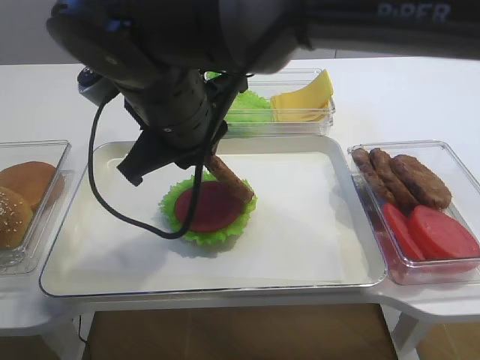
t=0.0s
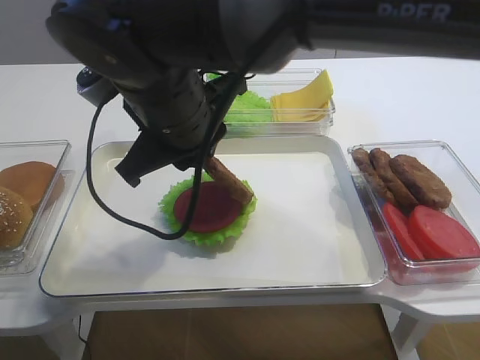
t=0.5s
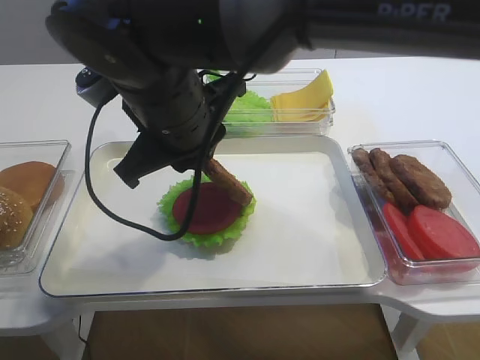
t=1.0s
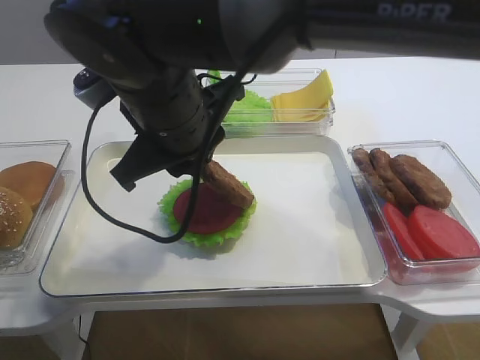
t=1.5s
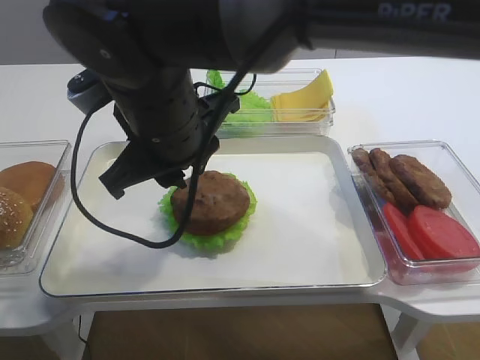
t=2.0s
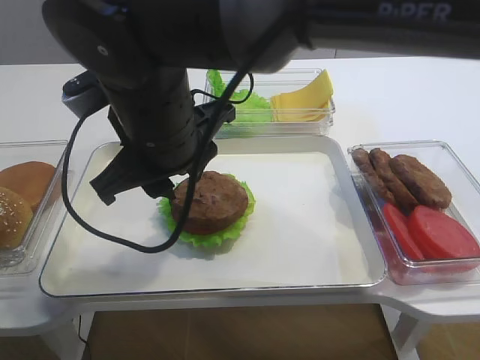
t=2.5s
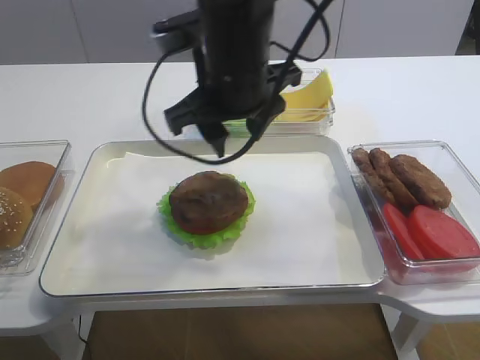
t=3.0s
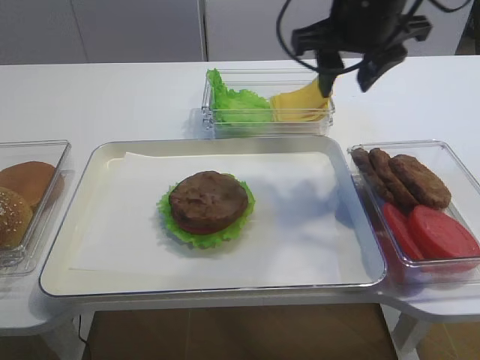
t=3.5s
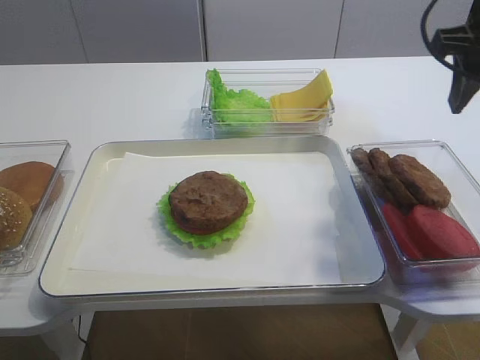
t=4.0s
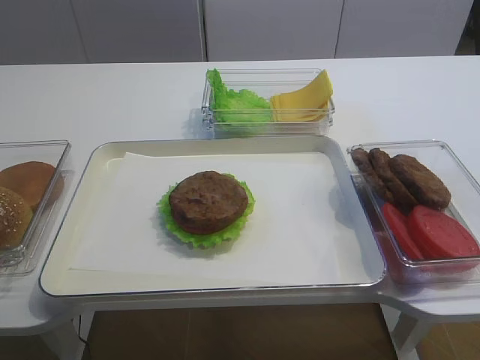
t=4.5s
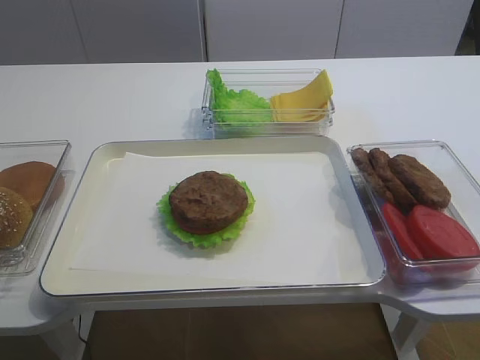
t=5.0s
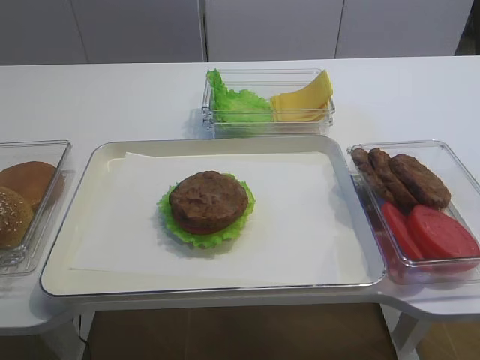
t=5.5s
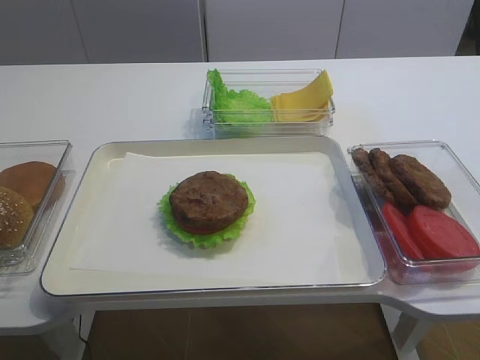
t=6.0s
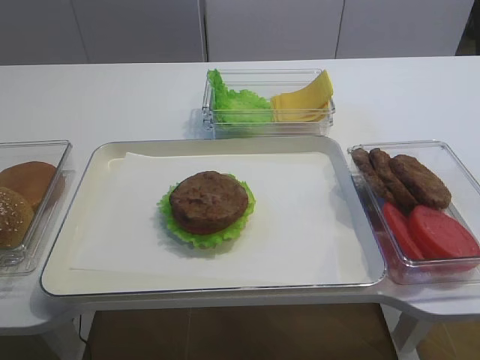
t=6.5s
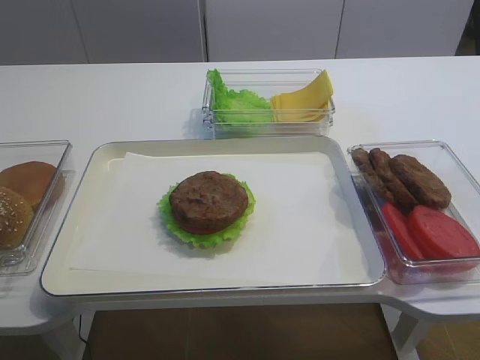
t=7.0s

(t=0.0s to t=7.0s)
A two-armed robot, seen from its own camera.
Step, t=0.0s - t=2.0s: Place the cutlet on the tomato slice with the right gripper.
t=0.0s - t=2.0s: The grippers stay close to where they were, moving slightly.
t=2.0s - t=3.5s: The right gripper heads to the right and forward, covering about 20 cm, and opens.
t=3.5s - t=5.0s: The right gripper travels backward and to the right by about 35 cm.
t=5.0s - t=7.0s: The right gripper goes approximately 5 cm downward.

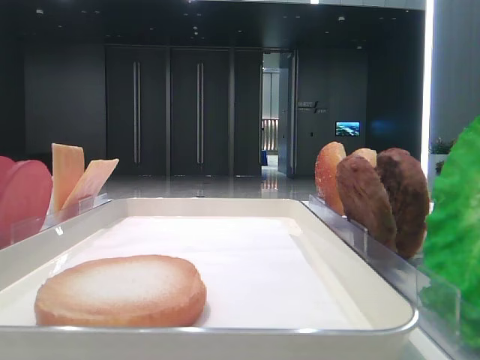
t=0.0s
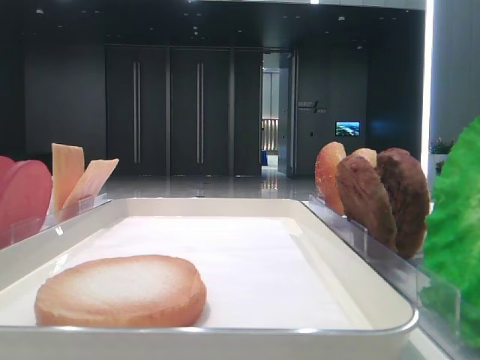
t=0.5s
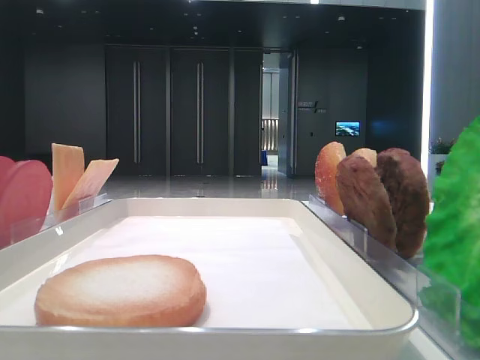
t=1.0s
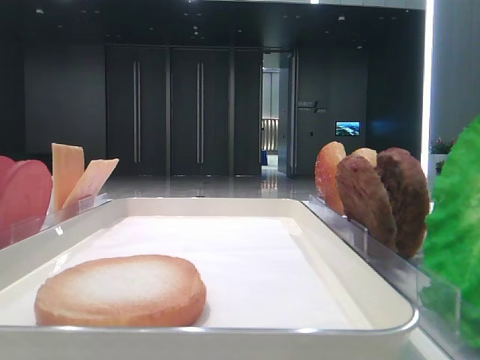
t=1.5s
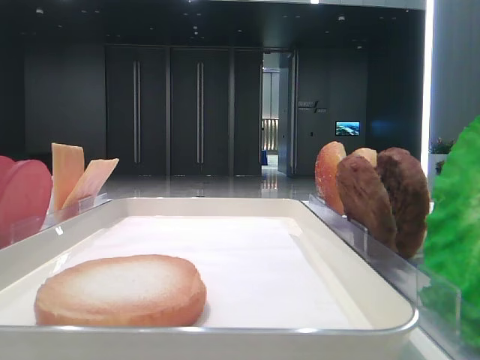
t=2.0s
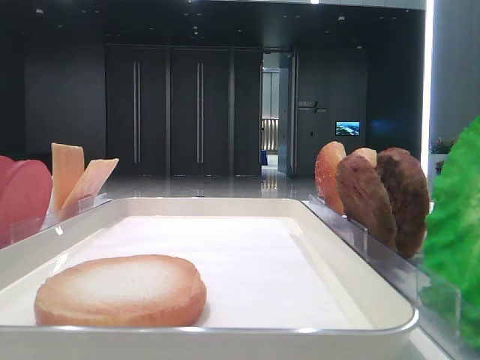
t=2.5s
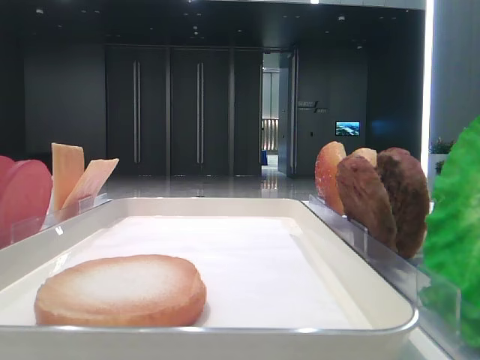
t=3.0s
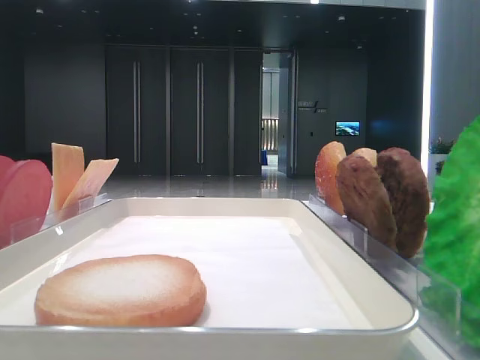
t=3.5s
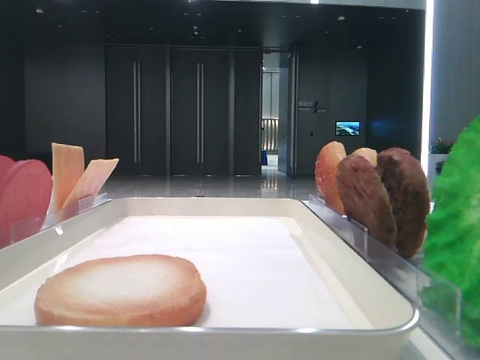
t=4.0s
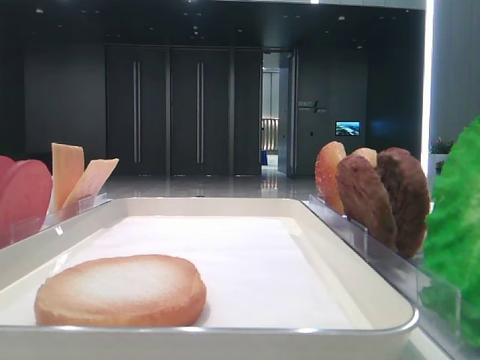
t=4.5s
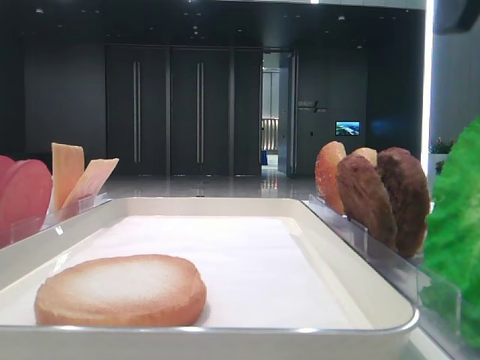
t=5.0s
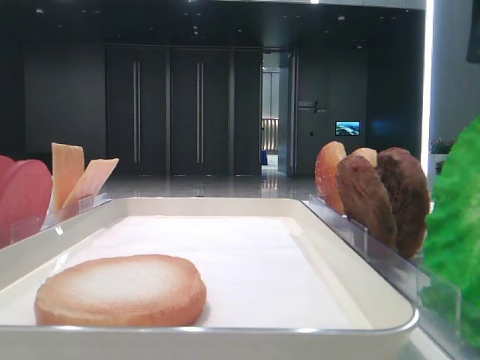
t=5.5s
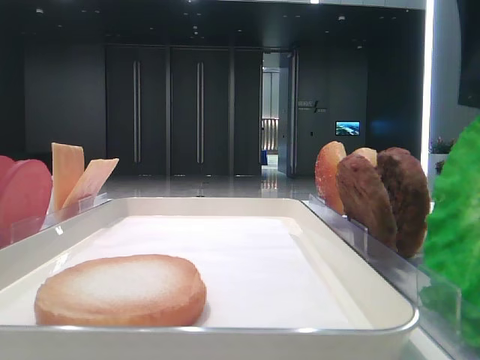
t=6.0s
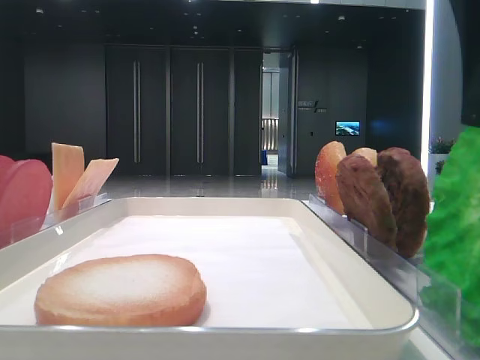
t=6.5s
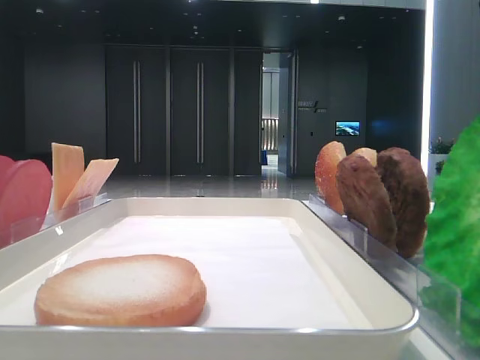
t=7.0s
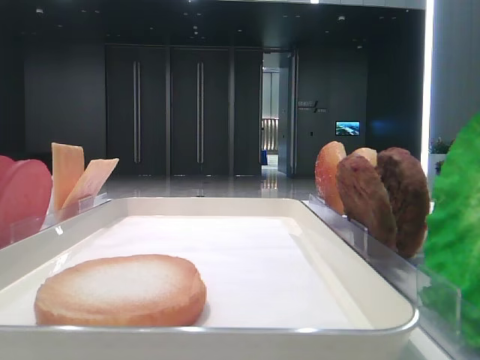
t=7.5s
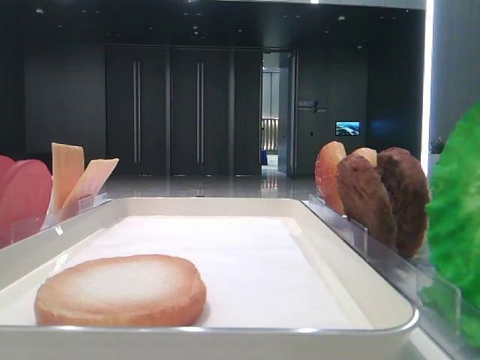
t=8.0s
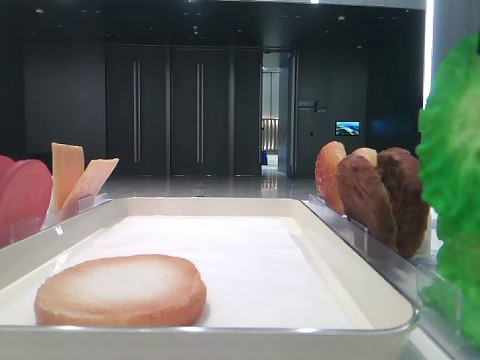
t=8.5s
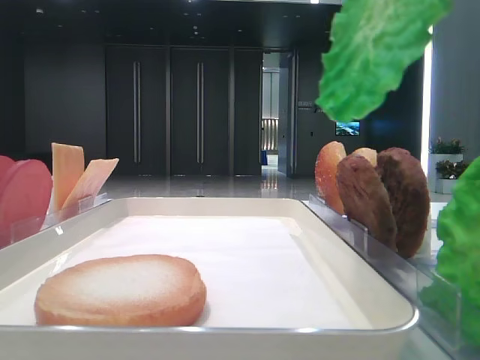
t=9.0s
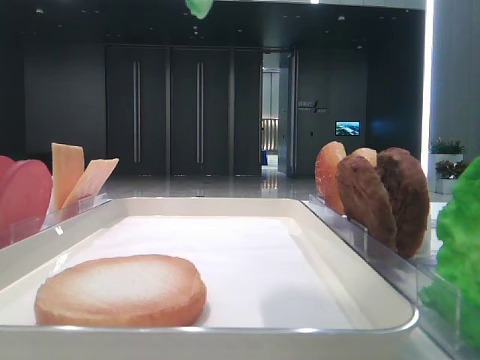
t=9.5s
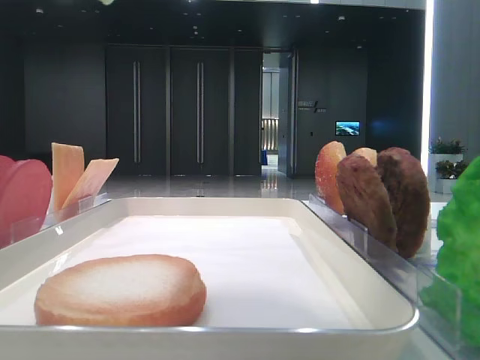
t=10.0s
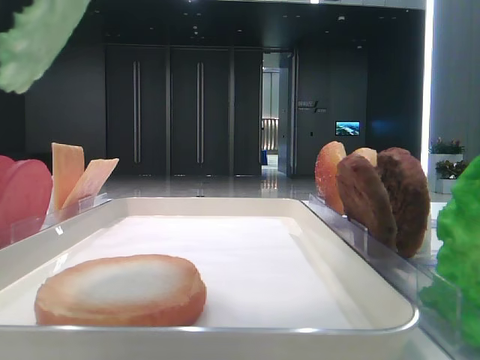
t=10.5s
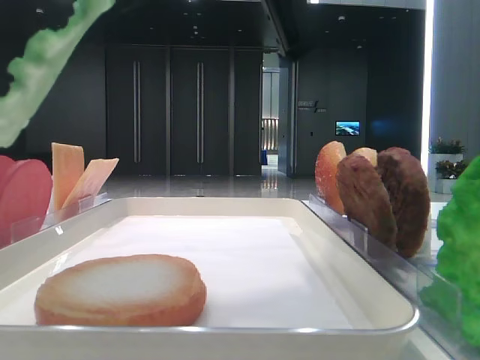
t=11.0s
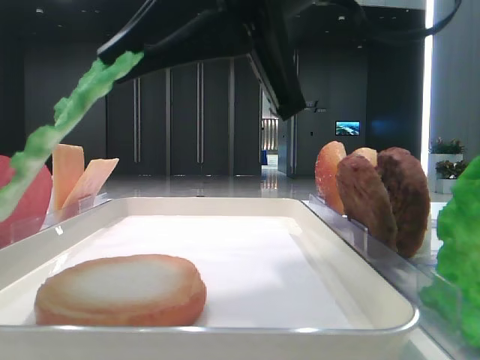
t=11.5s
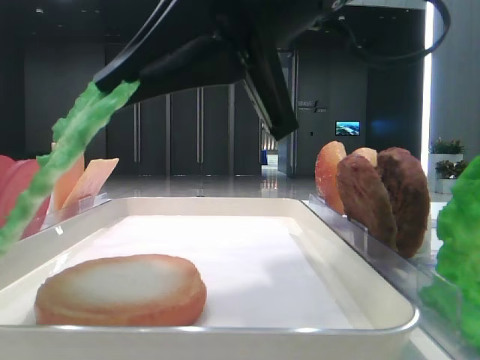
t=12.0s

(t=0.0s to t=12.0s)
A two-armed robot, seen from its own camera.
Step, t=0.0s - t=7.5s: Grab the lettuce leaf with the right hand.
t=4.0s - t=6.0s: The right gripper goes some 5 cm forward and to the left.
t=6.0s - t=8.0s: The right gripper closes.
t=8.0s - t=10.0s: The right gripper travels upward and to the left by roughly 10 cm.
t=10.0s - t=12.0s: The right gripper heads downward, to the left and forward, covering roughly 15 cm.

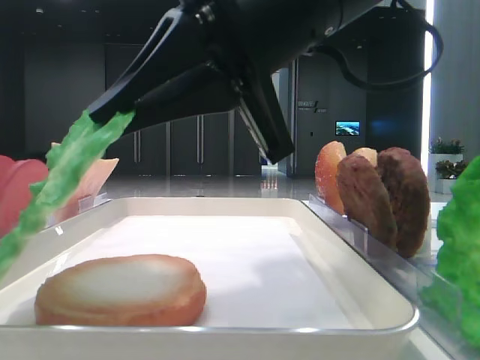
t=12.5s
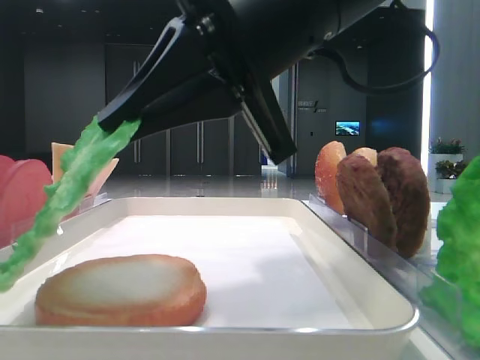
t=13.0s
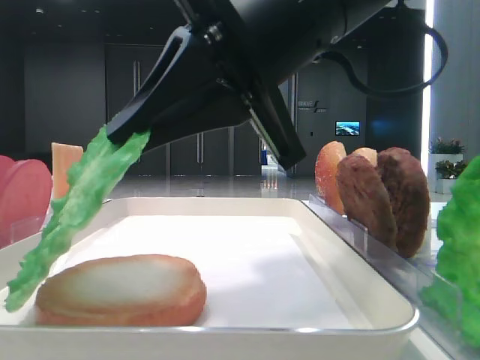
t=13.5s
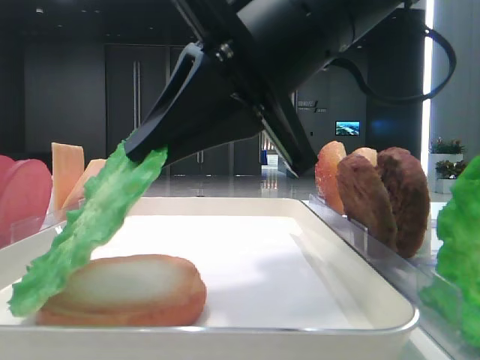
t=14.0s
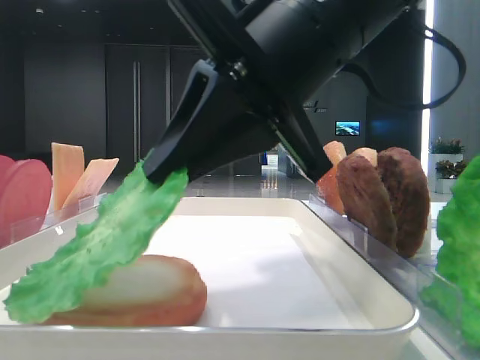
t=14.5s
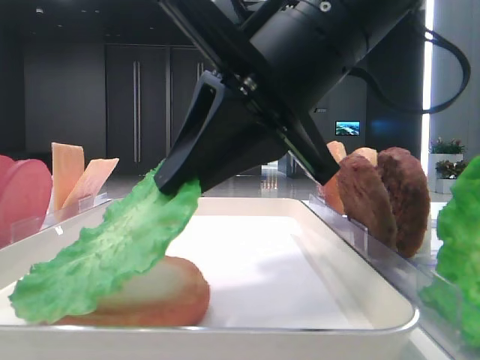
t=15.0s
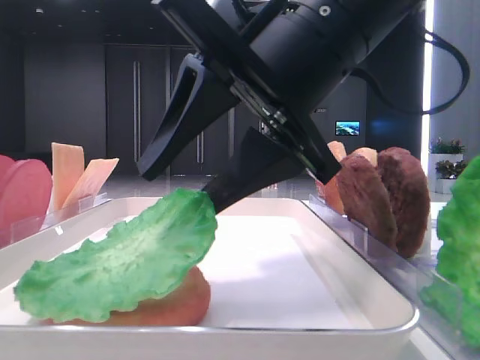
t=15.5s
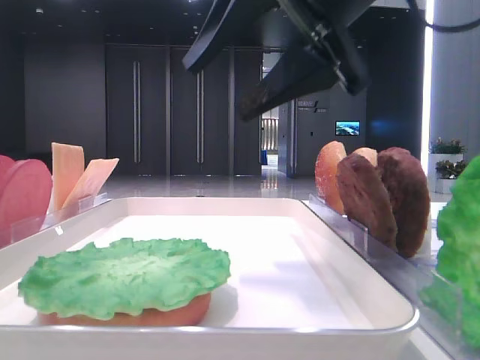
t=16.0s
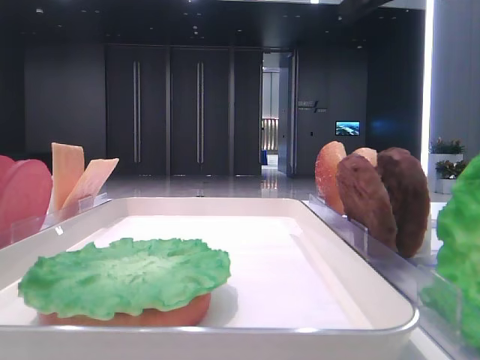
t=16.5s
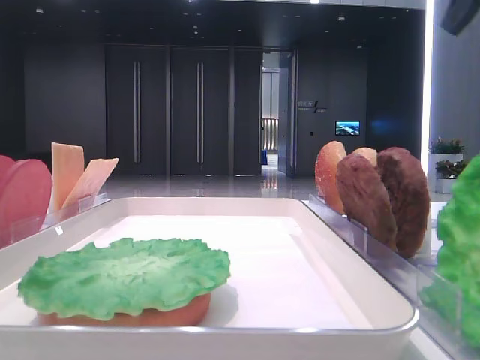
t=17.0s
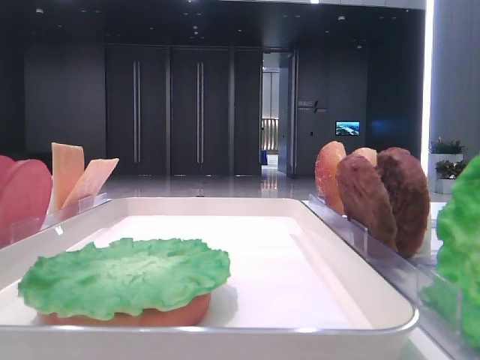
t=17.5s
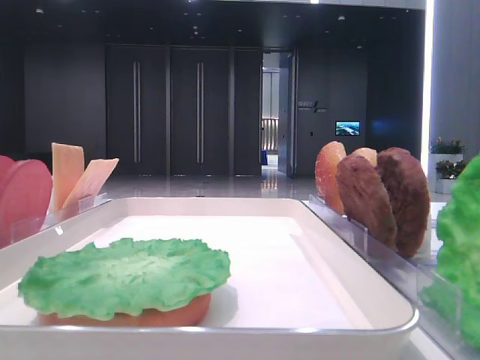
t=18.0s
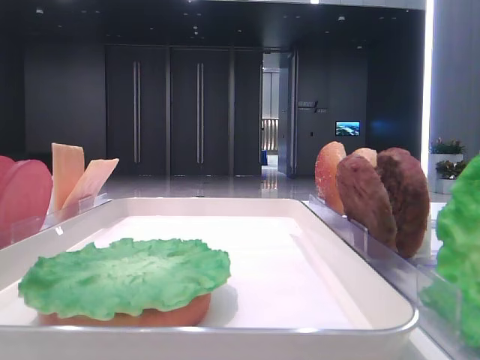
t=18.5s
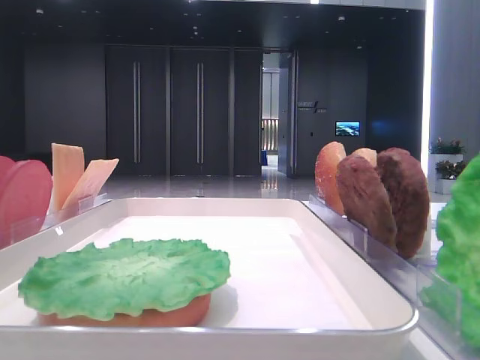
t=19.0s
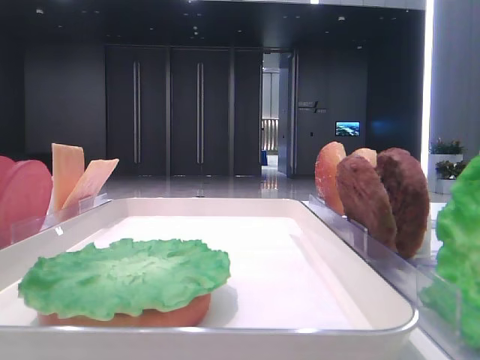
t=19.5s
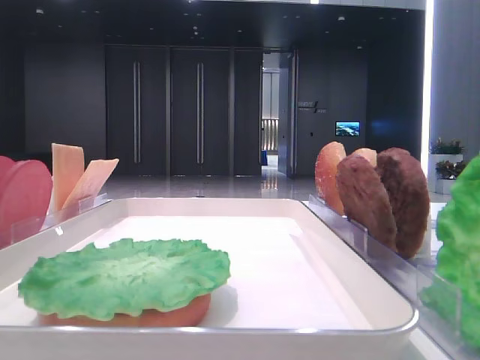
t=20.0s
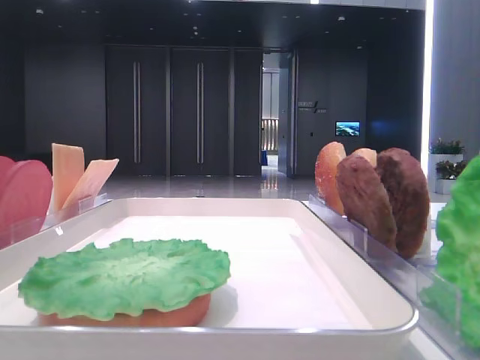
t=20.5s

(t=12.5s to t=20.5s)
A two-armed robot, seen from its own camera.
Step, t=12.5s - t=15.5s: Place the lettuce leaf on the bottom bread with the right hand.
t=12.5s - t=14.5s: The grippers make only small movements.
t=14.5s - t=16.5s: The right gripper shifts approximately 15 cm upward and to the right, and opens.
